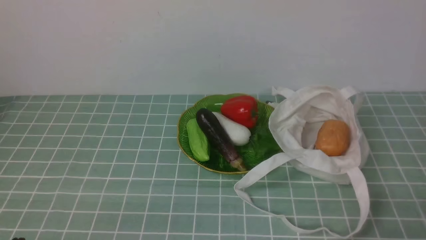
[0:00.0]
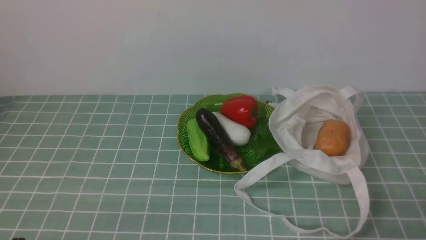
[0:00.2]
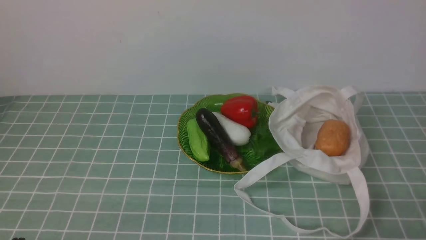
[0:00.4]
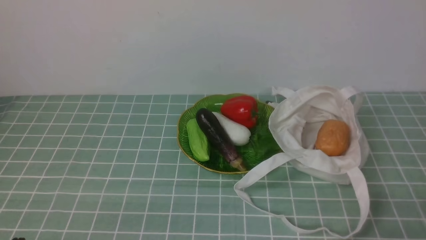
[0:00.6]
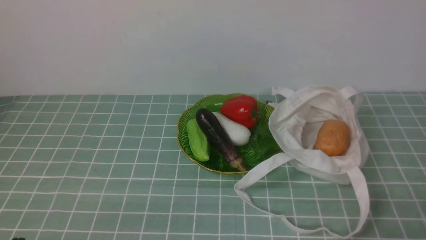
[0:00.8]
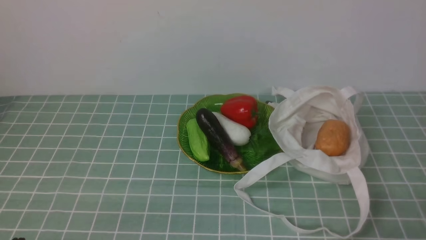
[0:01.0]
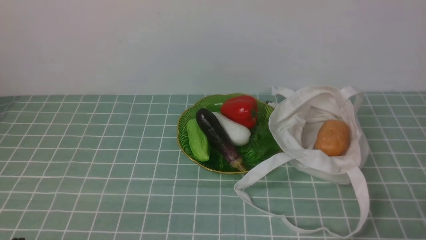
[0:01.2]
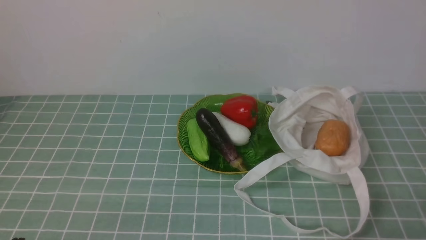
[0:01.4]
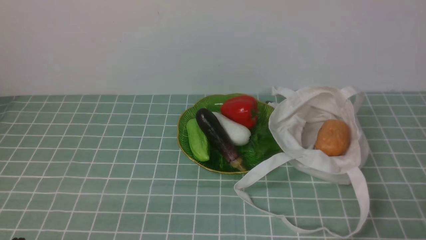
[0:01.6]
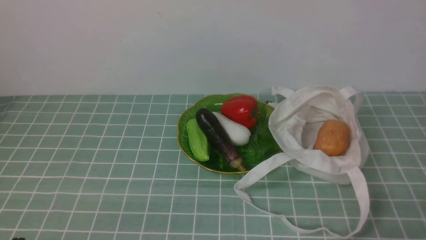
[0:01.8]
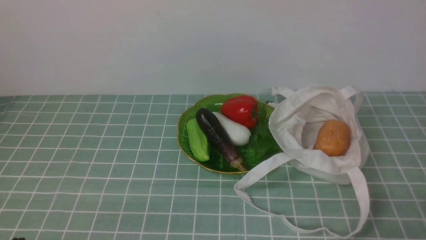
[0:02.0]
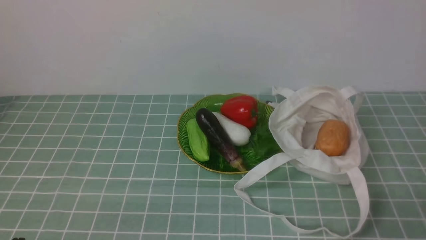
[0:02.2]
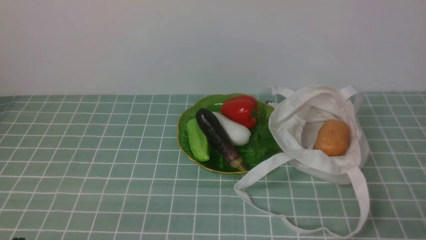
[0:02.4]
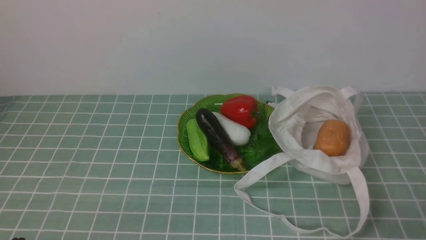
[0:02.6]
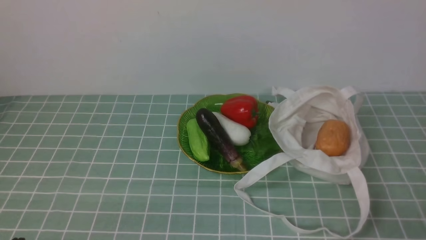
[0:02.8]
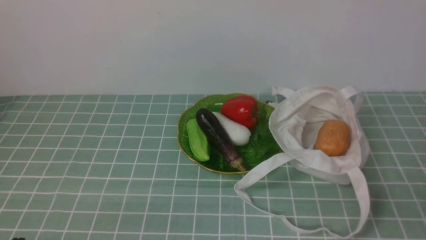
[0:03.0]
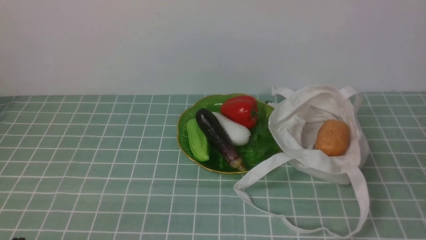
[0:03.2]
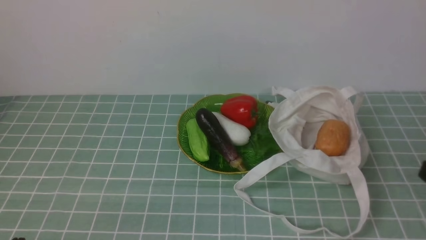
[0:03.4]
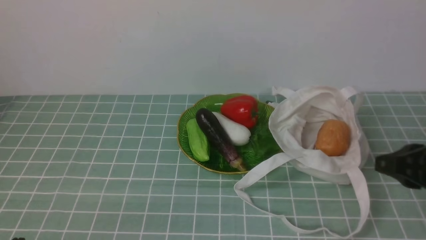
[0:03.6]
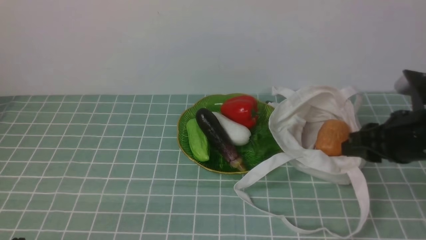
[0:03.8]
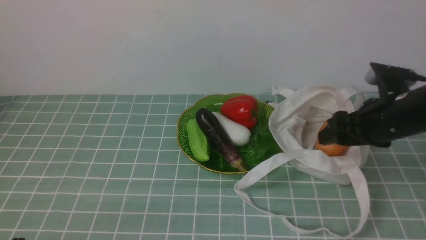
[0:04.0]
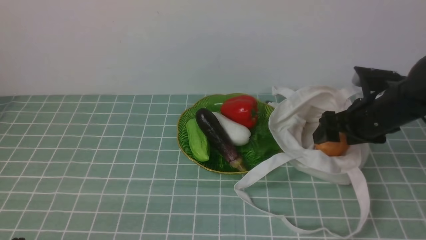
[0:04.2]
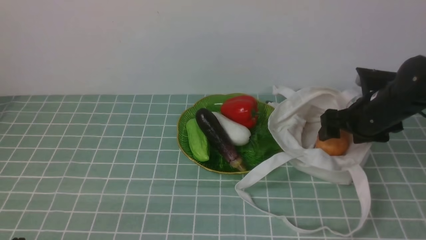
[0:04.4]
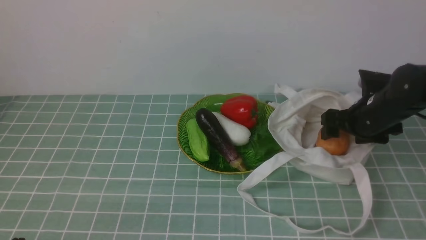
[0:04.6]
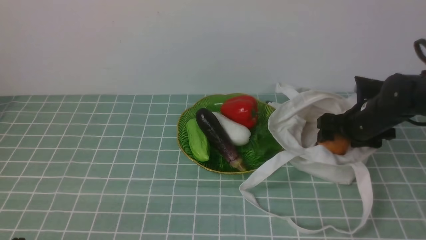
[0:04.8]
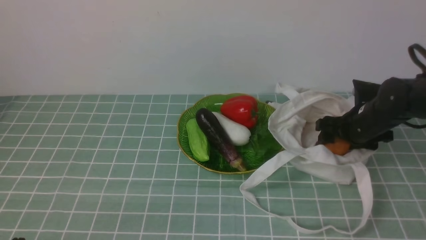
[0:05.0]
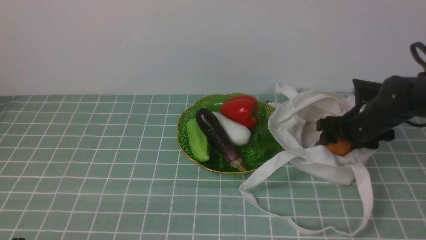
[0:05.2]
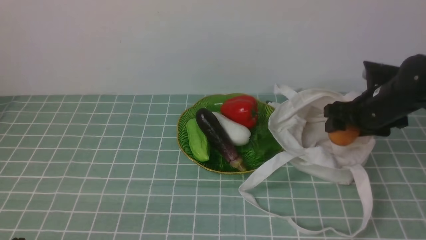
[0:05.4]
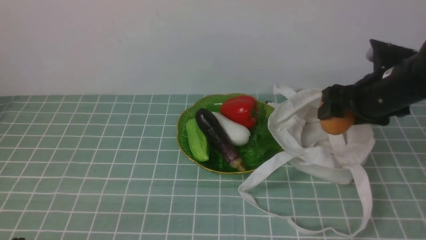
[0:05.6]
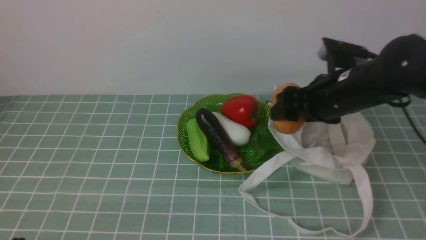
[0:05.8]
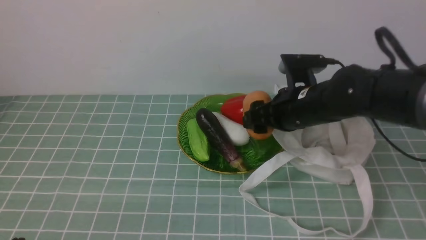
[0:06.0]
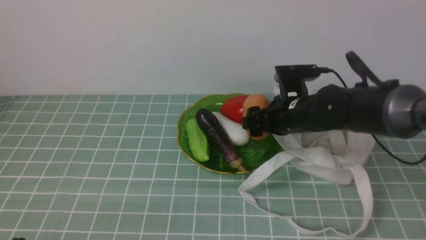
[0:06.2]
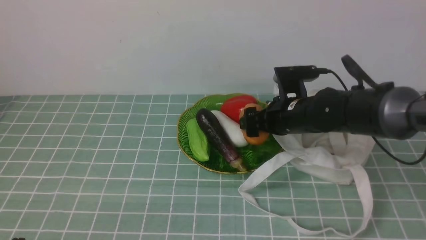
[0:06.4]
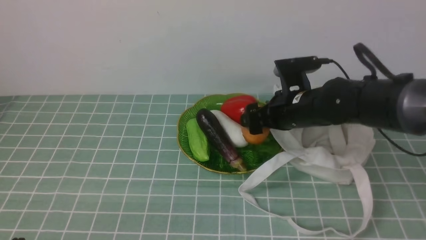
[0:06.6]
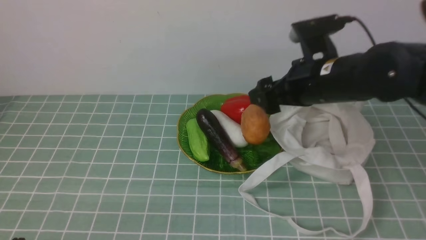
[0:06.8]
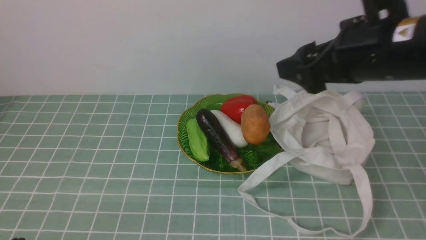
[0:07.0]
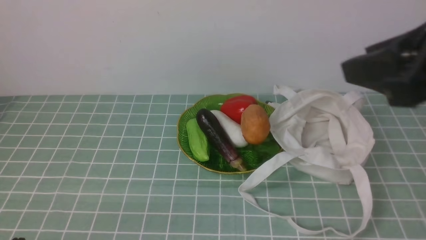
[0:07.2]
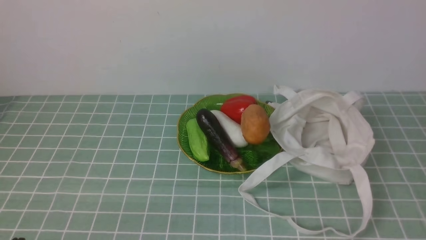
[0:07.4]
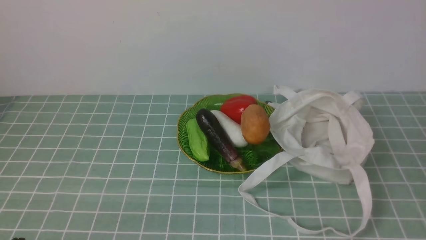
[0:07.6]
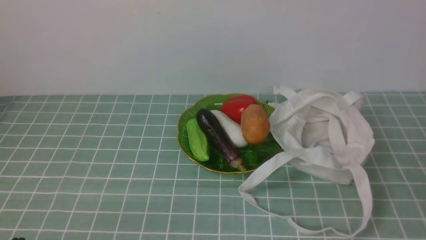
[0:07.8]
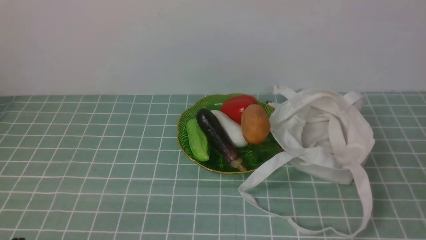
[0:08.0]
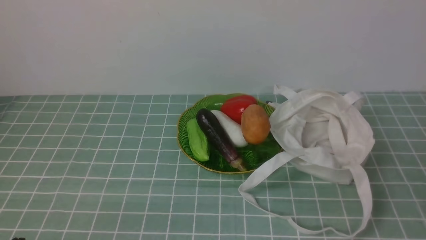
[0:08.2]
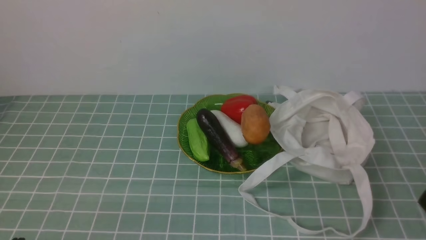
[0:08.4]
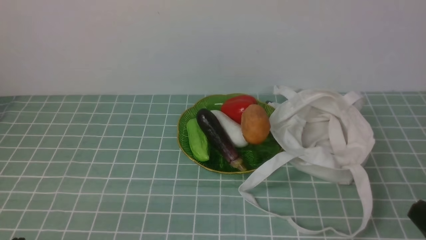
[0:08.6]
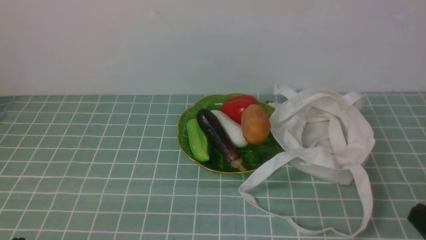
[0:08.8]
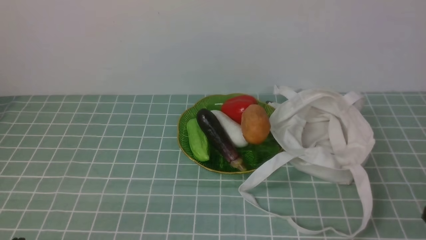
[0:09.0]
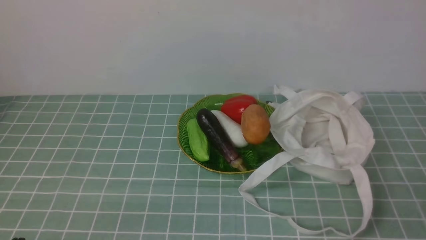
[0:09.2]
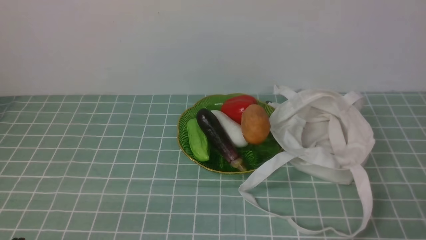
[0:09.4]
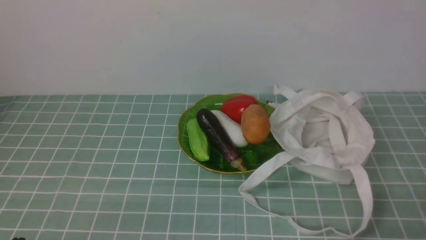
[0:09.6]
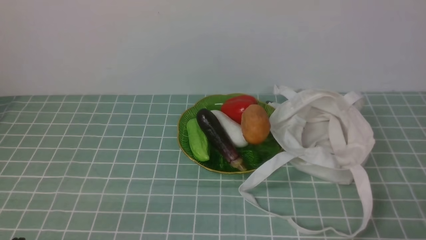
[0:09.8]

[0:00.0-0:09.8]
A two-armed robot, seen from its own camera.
Task of the whole recording: take vegetables from cloth bag on blue coffee tablecloth place on plate.
Step, 0:00.0 to 0:05.2: Grasp the potato with right gripper.
Step, 0:05.4 to 0:06.6: Place the potato on the plate with right gripper.
0:00.0 to 0:01.4: Both grippers stay about where they are.
0:02.8 to 0:04.2: The right gripper moves forward, approximately 30 cm, and opens up.
0:05.6 to 0:07.0: The right gripper goes roughly 15 cm upward and backward.
0:07.0 to 0:08.4: The right gripper moves backward, downward and to the right, roughly 25 cm, and closes up.

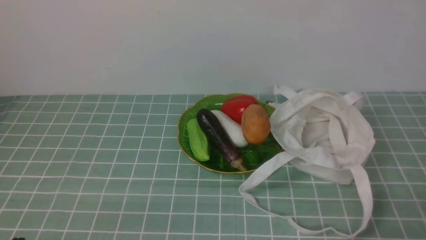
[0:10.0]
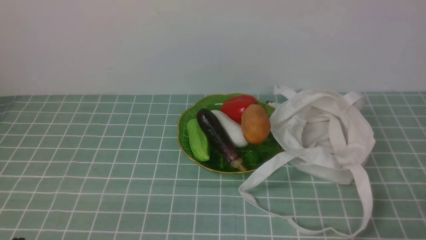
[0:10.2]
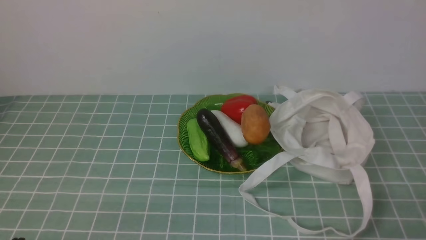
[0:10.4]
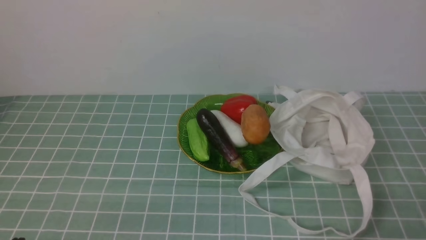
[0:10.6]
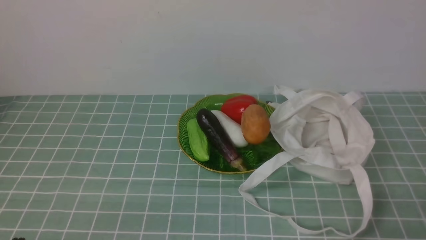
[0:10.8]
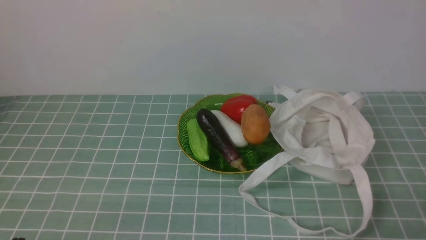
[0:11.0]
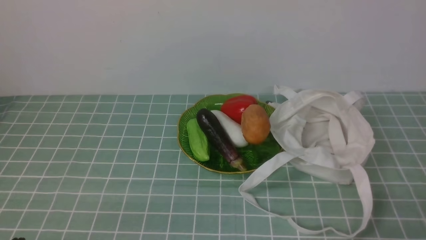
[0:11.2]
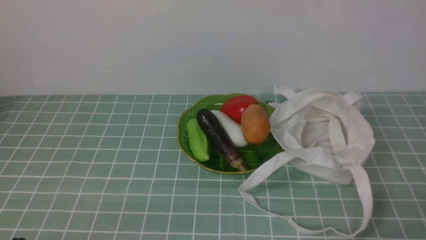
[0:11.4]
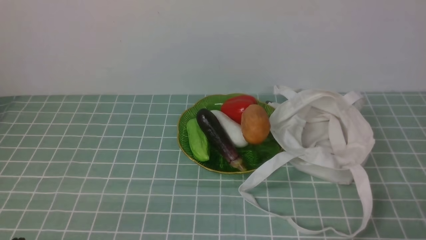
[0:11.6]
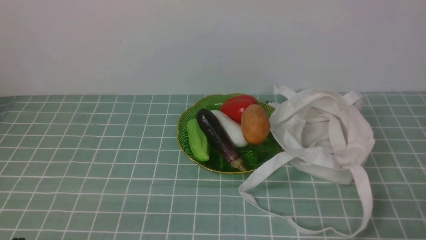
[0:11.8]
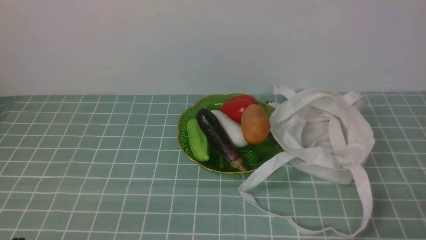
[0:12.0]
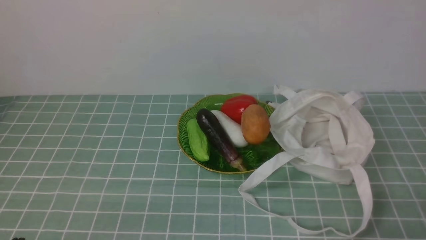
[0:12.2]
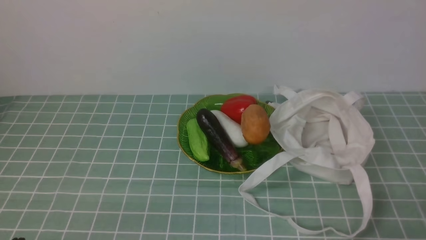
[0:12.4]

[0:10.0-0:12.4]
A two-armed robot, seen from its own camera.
Task of the whole recording: take vegetables from cloth bag on blue coffee tablecloth place on plate.
0:10.0 to 0:12.4: The two grippers keep their place.

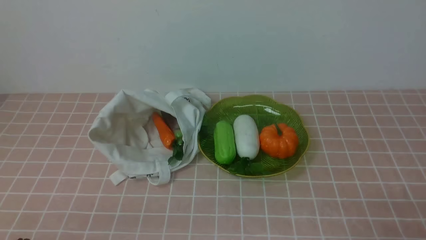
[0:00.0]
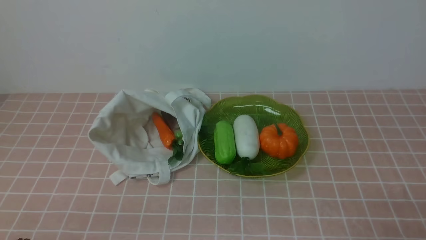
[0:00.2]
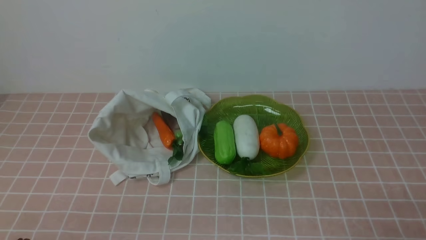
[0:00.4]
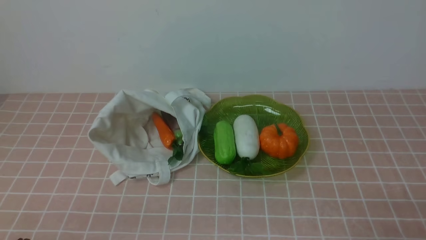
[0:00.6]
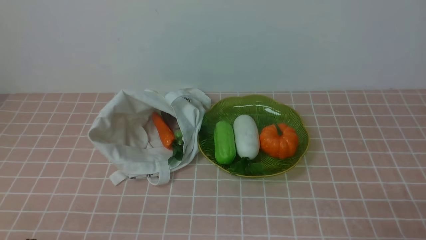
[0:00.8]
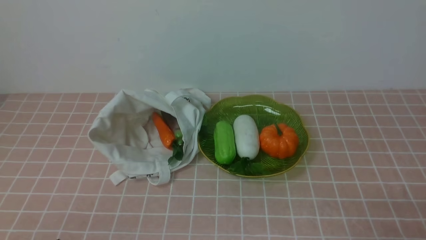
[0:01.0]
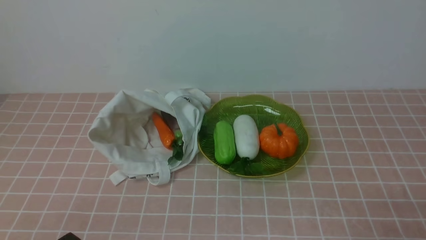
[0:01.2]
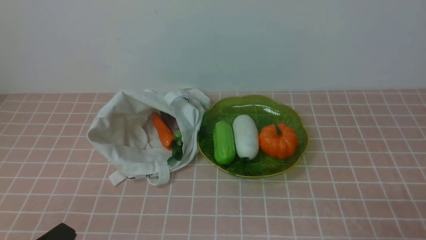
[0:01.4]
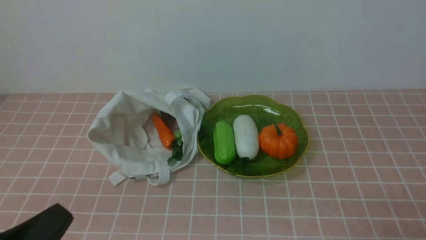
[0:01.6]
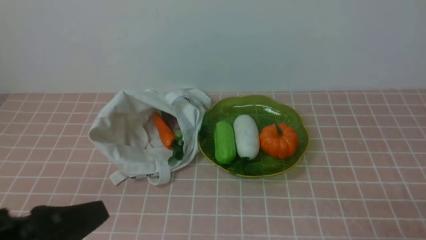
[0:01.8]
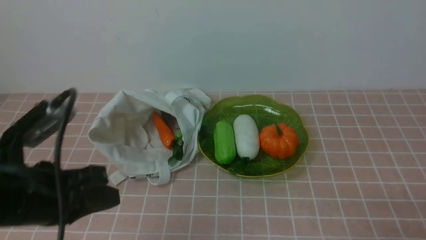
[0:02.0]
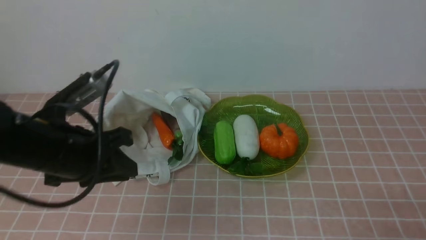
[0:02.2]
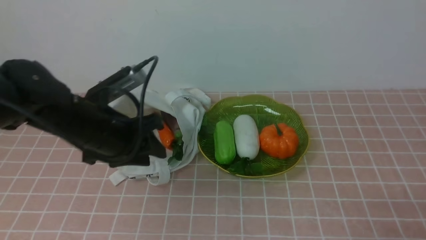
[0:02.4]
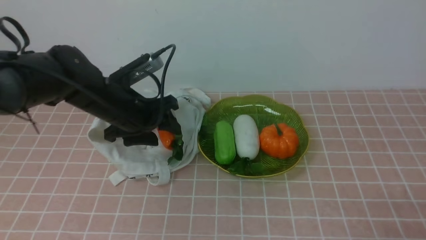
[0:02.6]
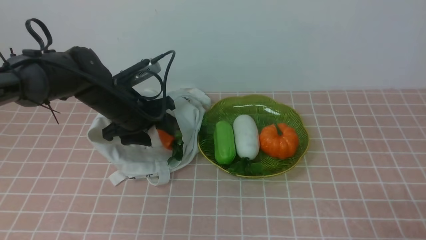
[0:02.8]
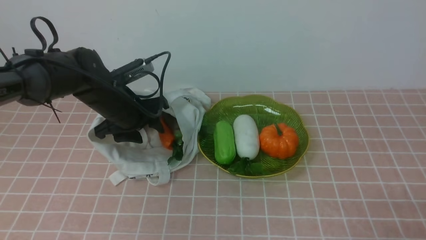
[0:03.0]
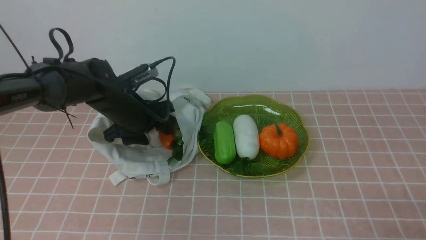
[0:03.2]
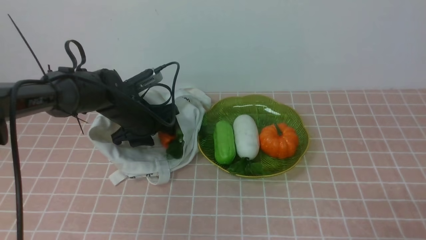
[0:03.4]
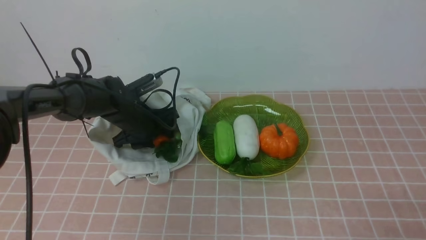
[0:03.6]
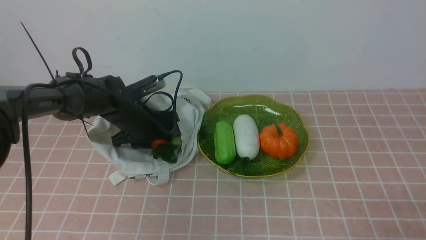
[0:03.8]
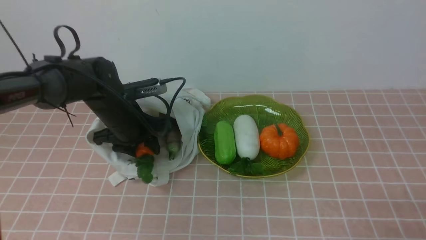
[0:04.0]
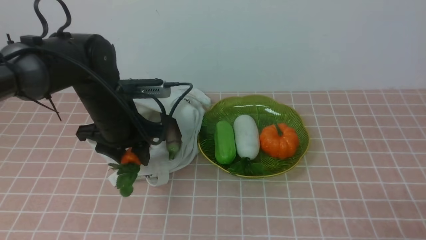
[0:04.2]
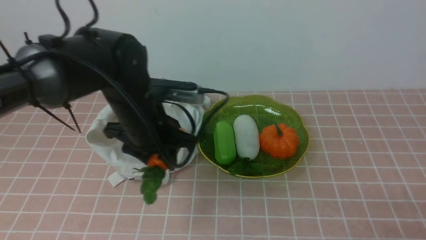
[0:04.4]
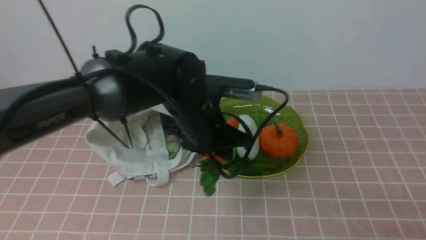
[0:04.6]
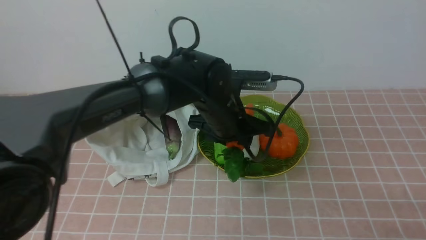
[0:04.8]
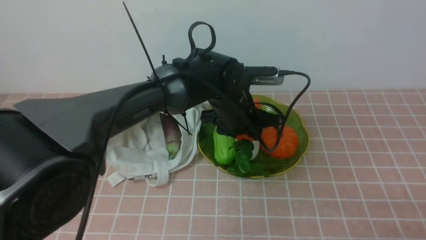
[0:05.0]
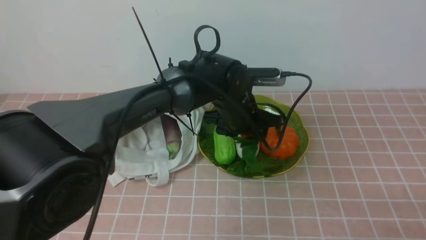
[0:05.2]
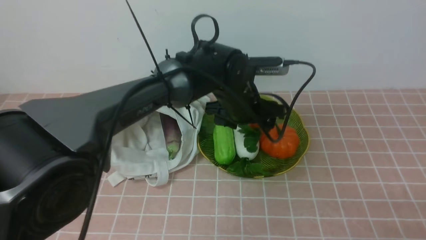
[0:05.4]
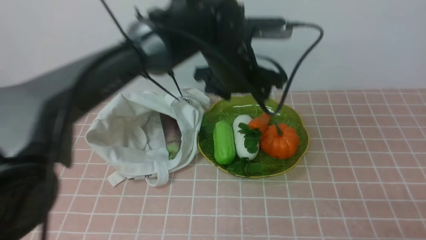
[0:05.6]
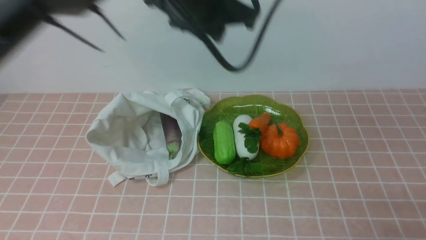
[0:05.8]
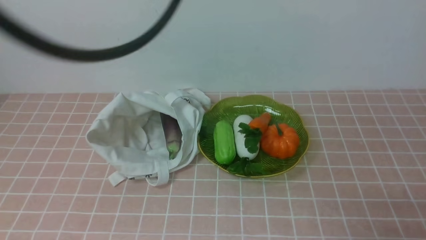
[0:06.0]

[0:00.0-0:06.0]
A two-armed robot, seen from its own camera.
Task of the whole recording: take vegetables from bag on pink coffee tablecloth place on plate.
Step, 0:00.0 to 0:03.8: Grasp the carrot with left gripper.
Step, 0:04.0 to 0:05.6: Place the carrot on the plate with left gripper.
0:00.0 to 0:01.6: The left gripper shifts approximately 10 cm upward.
0:01.6 to 0:03.0: The left gripper goes roughly 35 cm forward, and opens its fingers.
0:03.0 to 0:04.4: The left gripper moves to the right, backward and upward, about 10 cm.
0:04.4 to 0:06.0: The left gripper travels upward by some 25 cm, and closes up; the right gripper closes its fingers.
